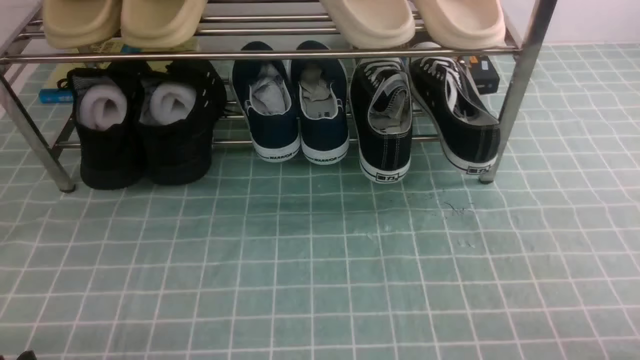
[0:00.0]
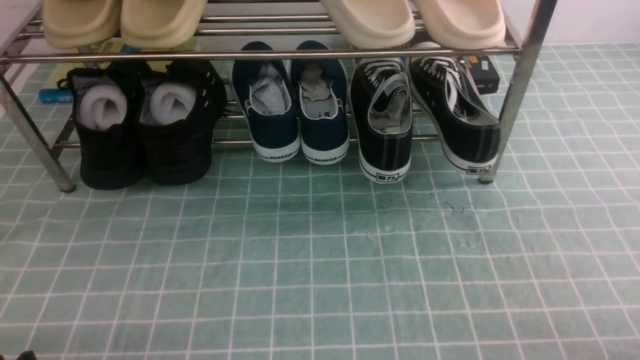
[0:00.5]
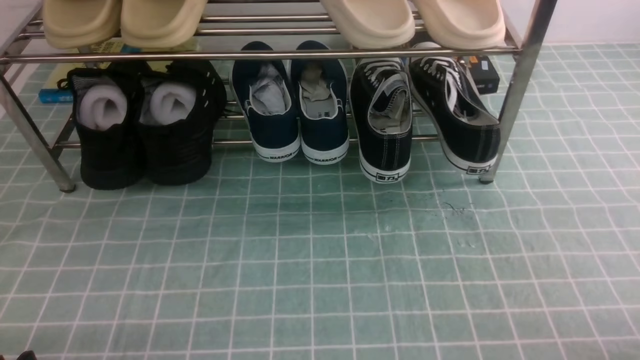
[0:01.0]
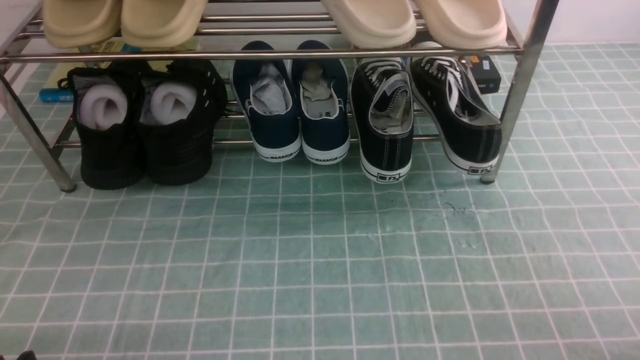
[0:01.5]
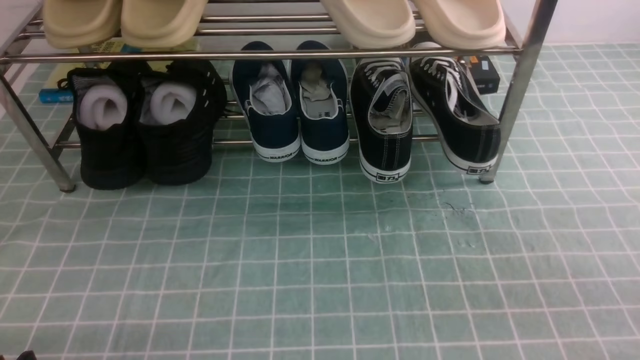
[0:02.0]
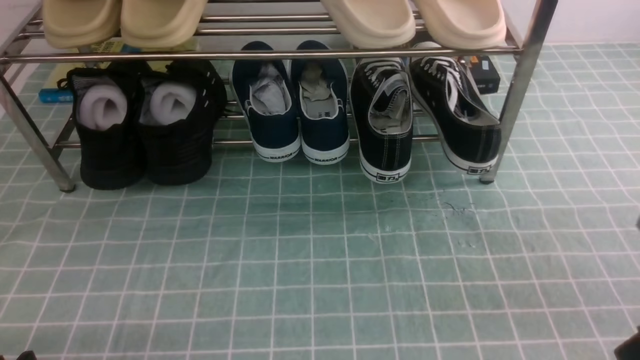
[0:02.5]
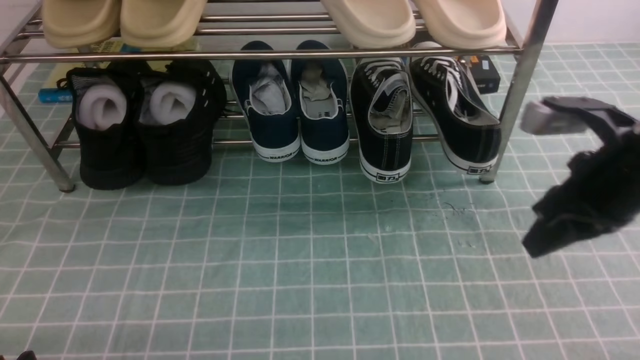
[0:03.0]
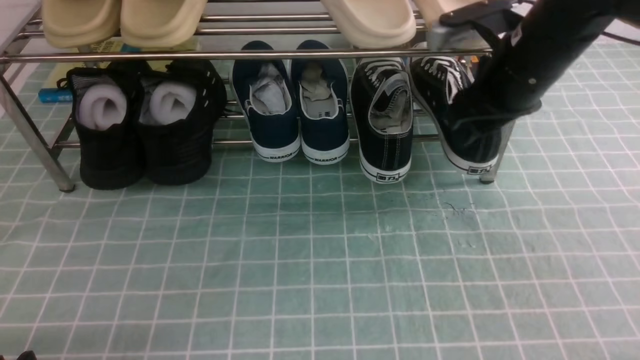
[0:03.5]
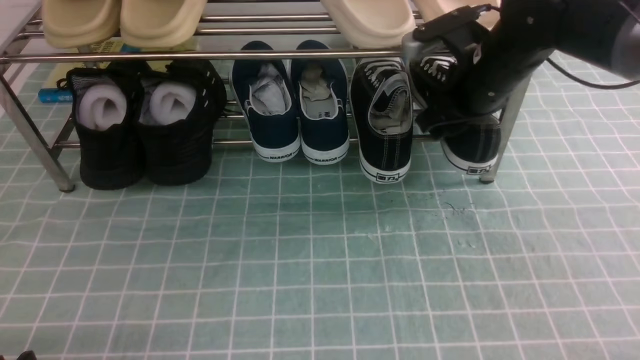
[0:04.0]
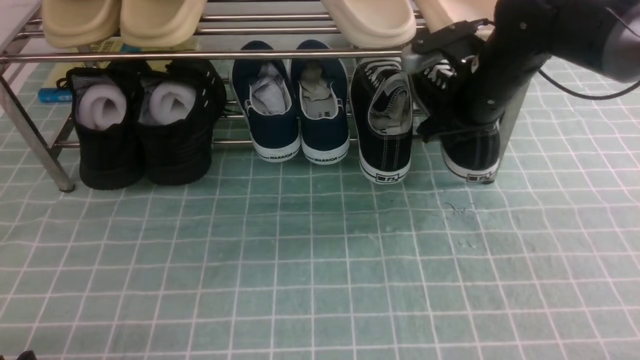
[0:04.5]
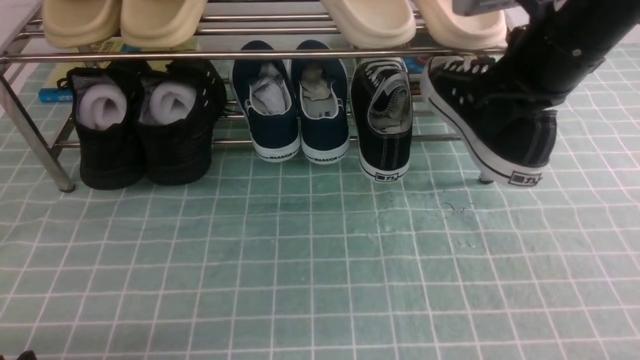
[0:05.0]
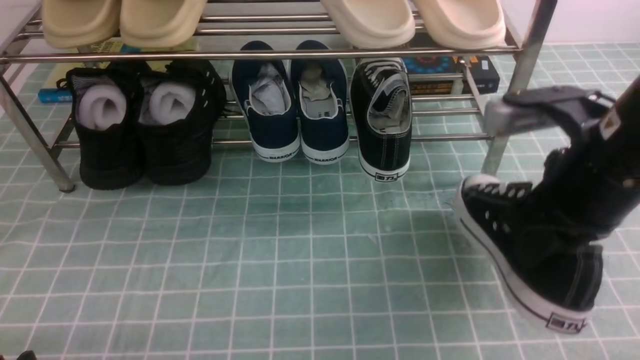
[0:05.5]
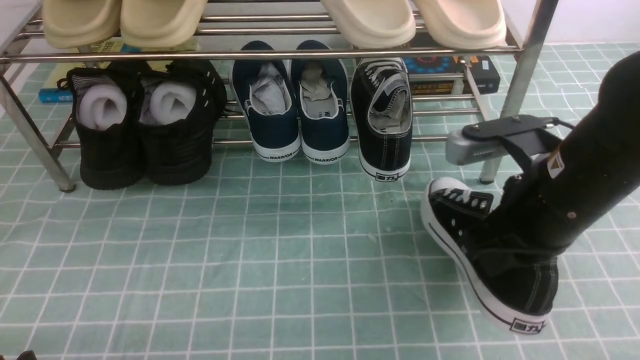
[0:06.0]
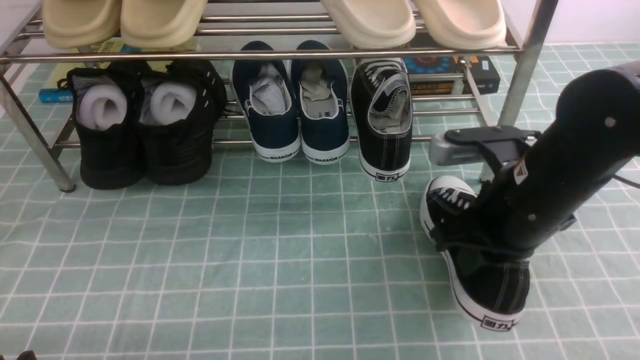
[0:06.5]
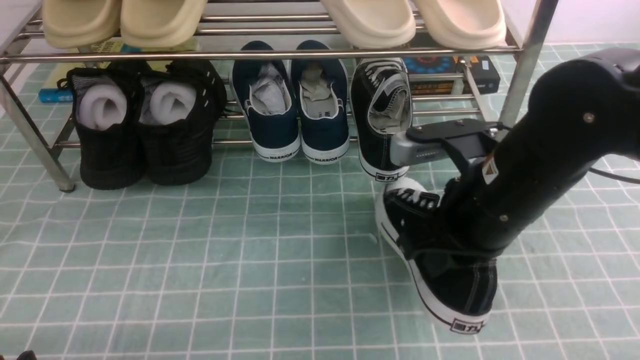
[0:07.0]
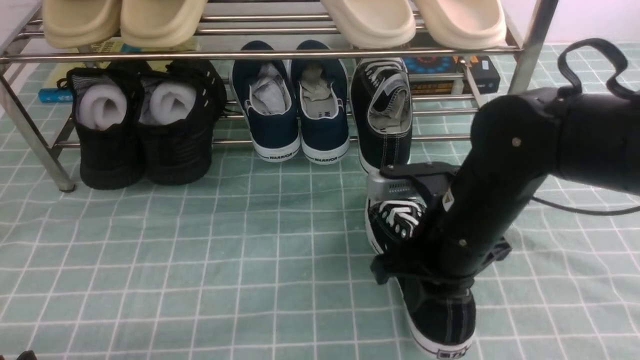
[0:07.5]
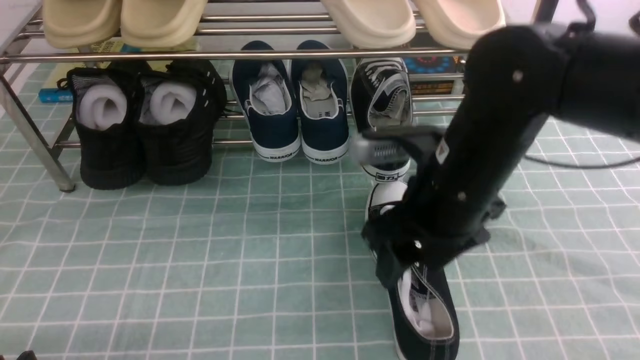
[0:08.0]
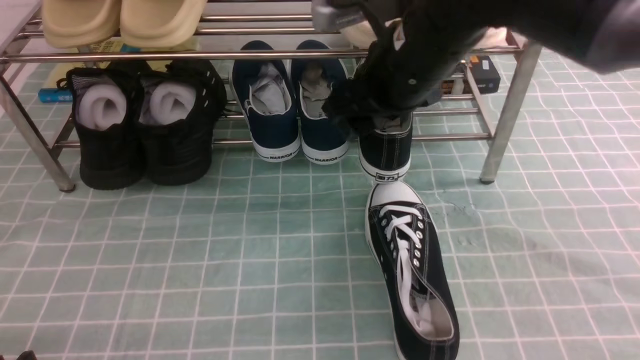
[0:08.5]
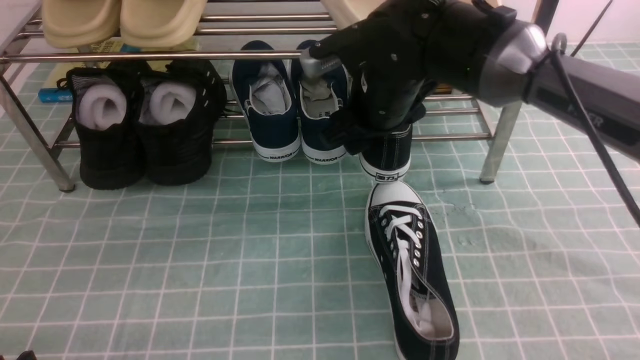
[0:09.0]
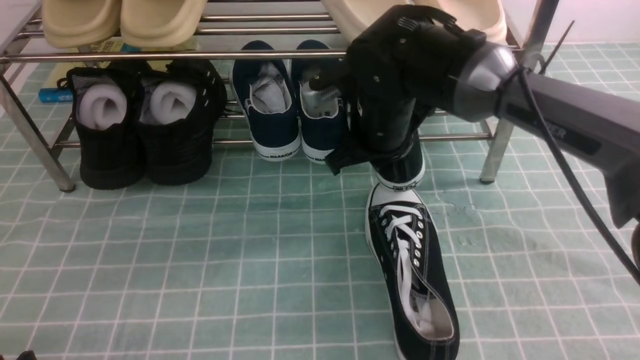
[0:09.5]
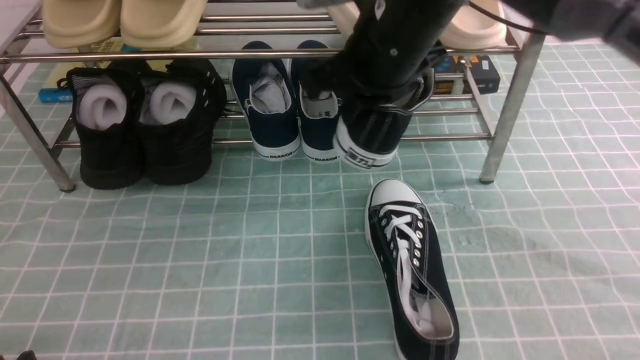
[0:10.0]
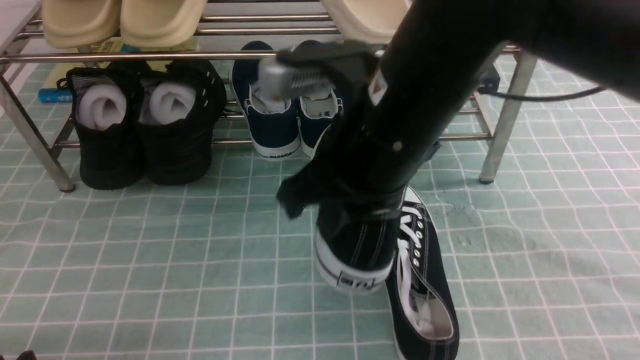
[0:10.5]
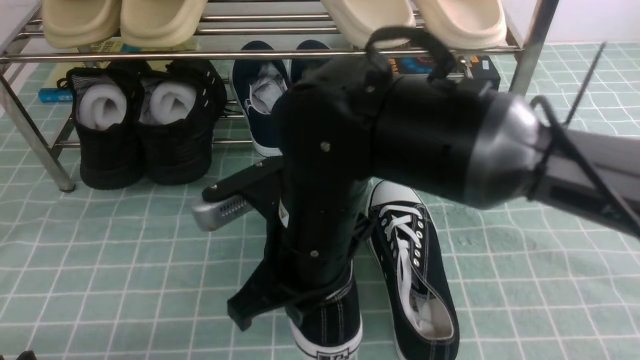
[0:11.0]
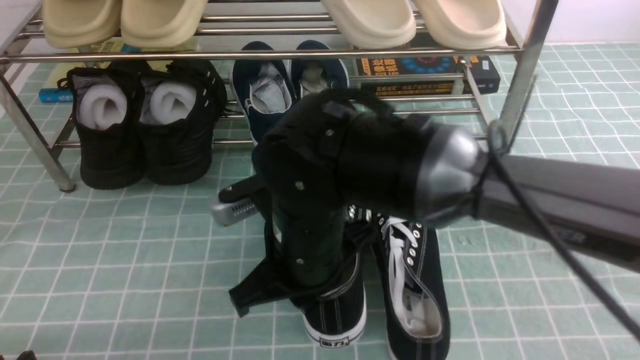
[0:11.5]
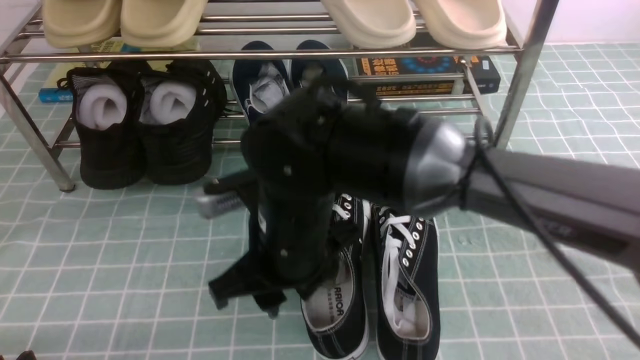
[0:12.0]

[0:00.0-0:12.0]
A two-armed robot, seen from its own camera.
Step, 0:00.0 to 0:04.0: use the right arm to clamp a shoe on the right side of the shoe rack.
Step, 0:04.5 to 0:07.5: use the right arm to take out the clamped shoe from the shoe rack and put it down.
Step, 0:08.0 to 0:09.5: use the right arm to clamp a shoe on the right side of the shoe rack.
0:02.0 to 0:04.0: The right gripper is displaced forward by roughly 30 cm, and opens up.
0:04.0 to 0:06.0: The right gripper heads backward, covering about 15 cm, and closes.
0:06.0 to 0:08.0: The right gripper shifts approximately 10 cm to the left, and opens its fingers.
0:08.0 to 0:10.0: The right gripper heads upward and forward, covering some 10 cm, and closes.
0:10.0 to 0:12.0: The right gripper travels backward, downward and to the left by roughly 15 cm, and opens up.

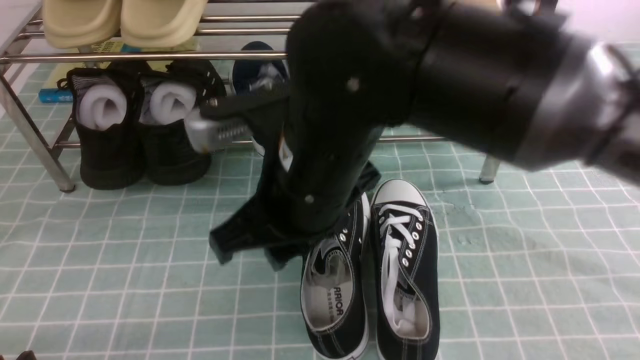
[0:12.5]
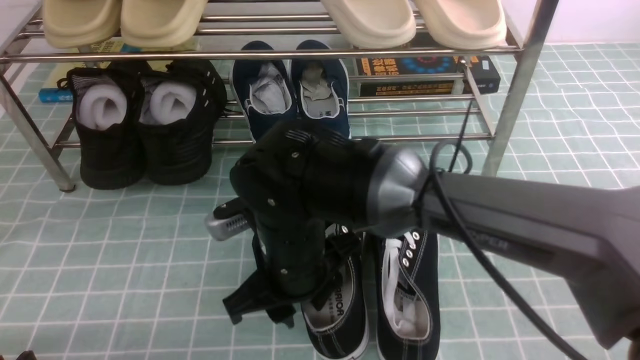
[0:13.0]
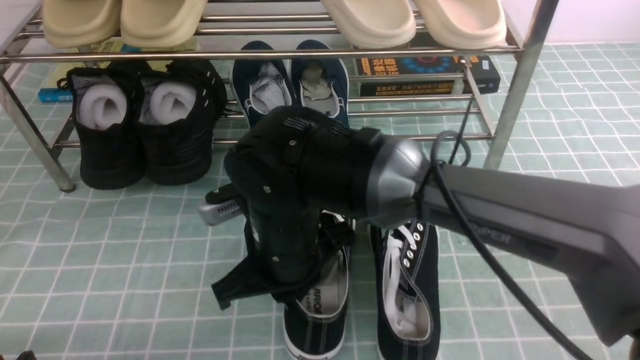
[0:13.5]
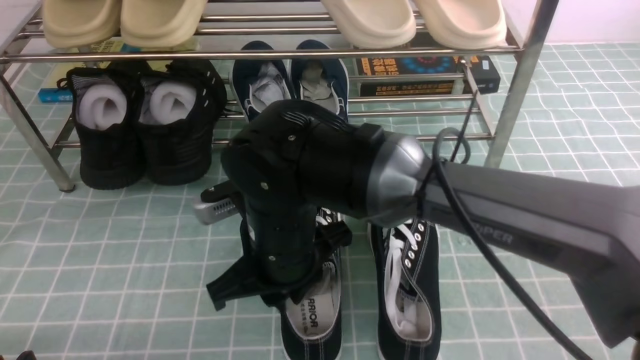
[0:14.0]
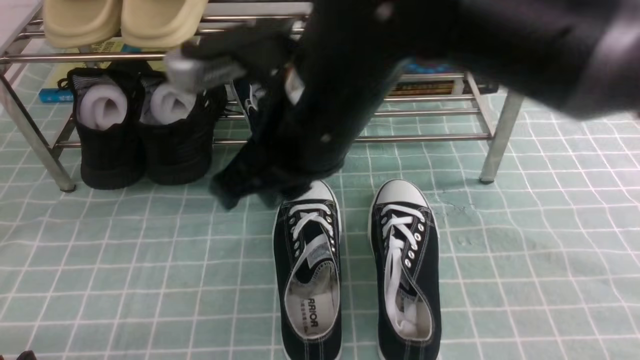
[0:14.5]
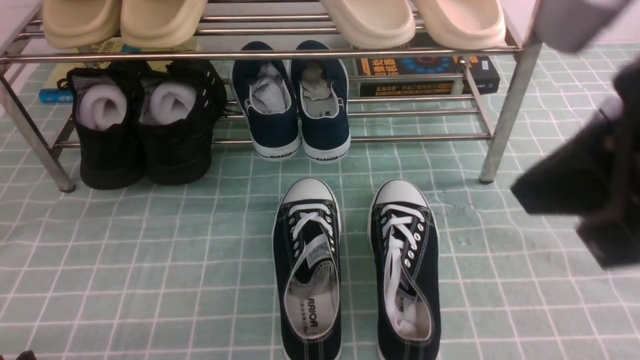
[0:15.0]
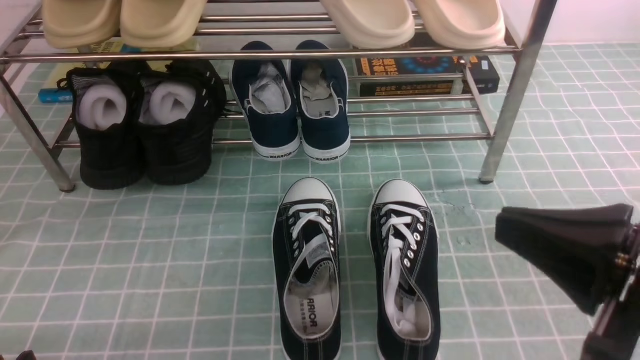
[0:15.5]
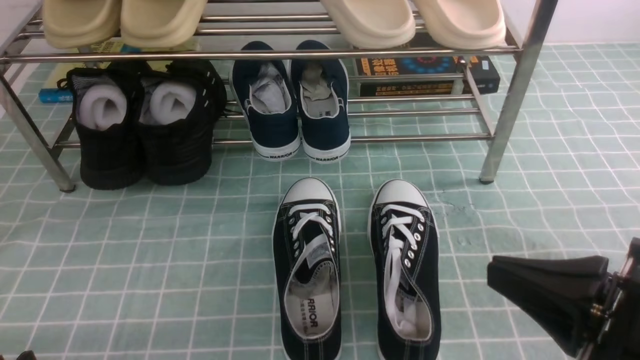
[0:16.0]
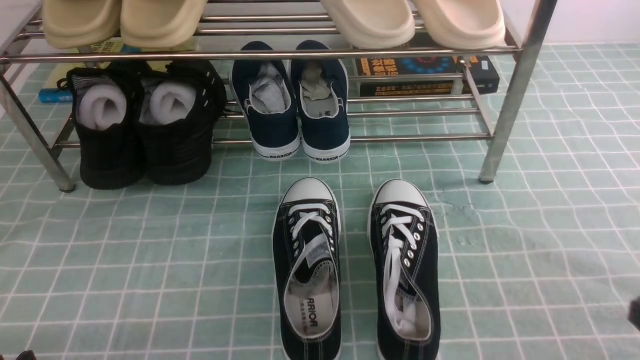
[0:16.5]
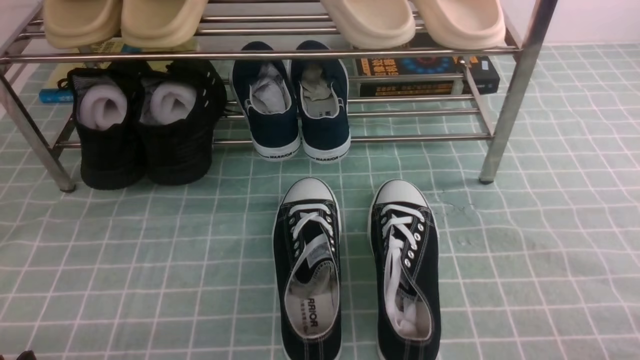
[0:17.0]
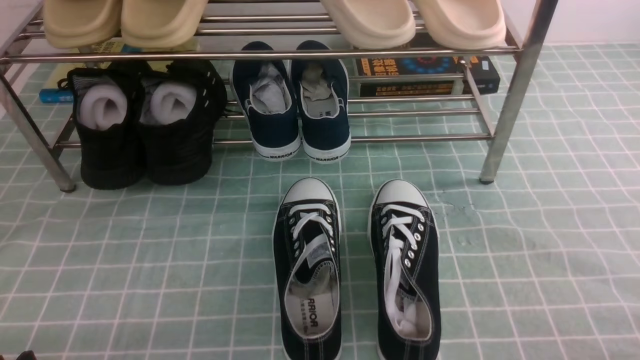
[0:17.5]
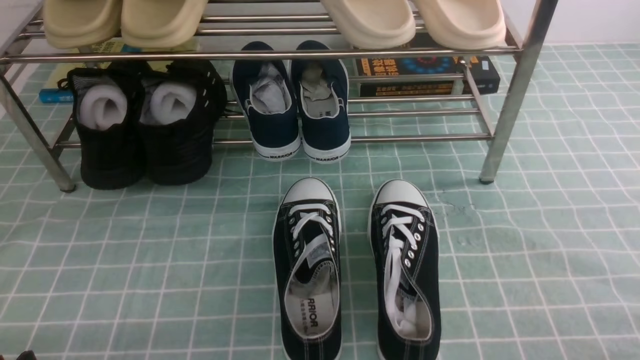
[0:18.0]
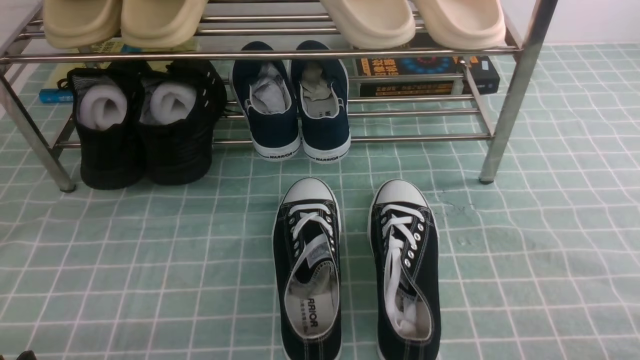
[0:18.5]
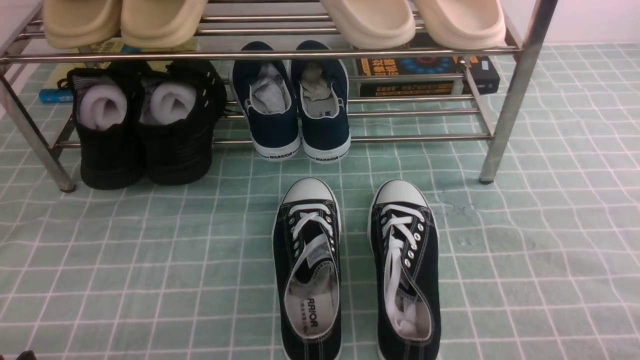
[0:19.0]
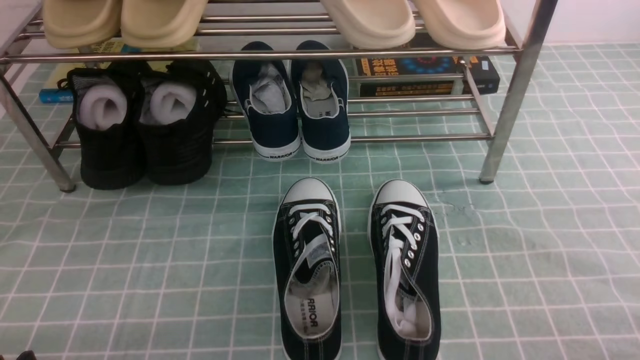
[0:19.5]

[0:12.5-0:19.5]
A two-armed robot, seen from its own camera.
0:12.5 to 0:14.5: The right gripper shifts some 10 cm upward.
0:14.5 to 0:16.0: The right gripper shifts approximately 25 cm to the right, backward and downward.
0:16.0 to 0:17.5: The right gripper shifts roughly 15 cm to the right and downward.
0:17.5 to 0:19.5: Neither gripper changes place.
